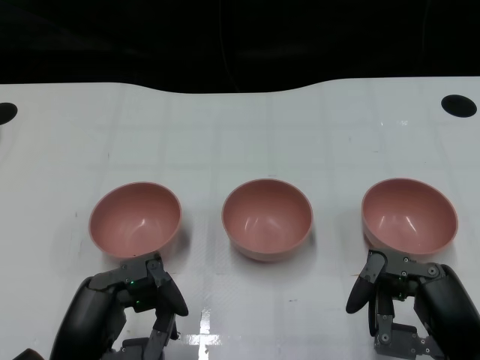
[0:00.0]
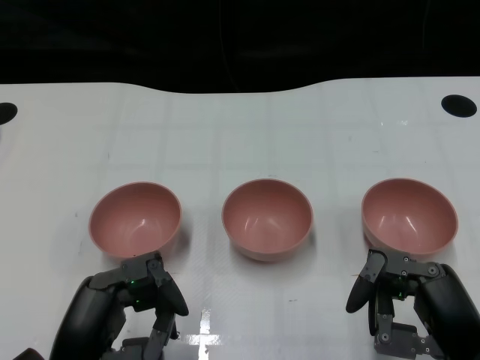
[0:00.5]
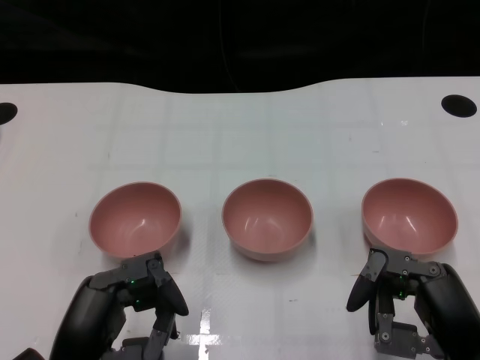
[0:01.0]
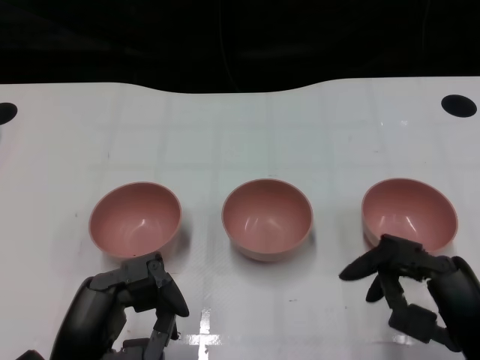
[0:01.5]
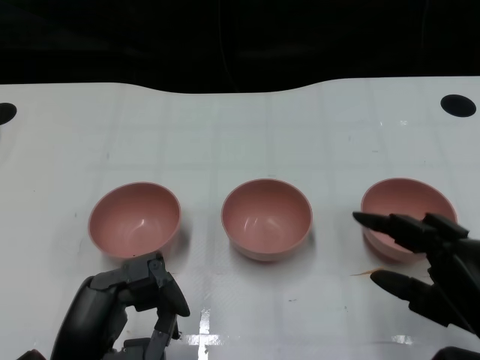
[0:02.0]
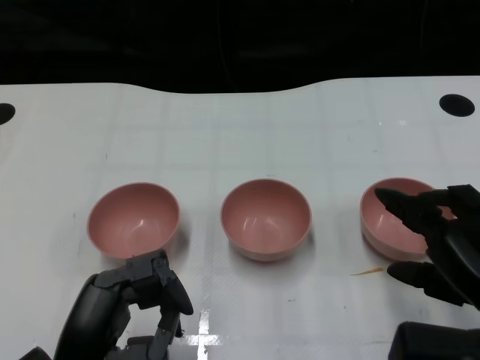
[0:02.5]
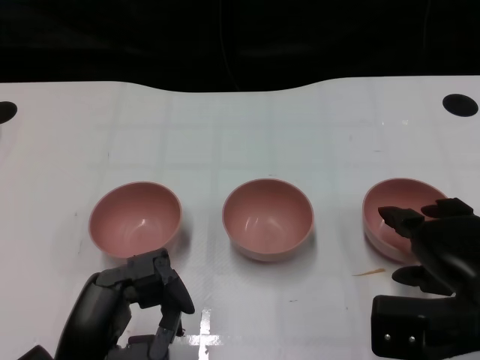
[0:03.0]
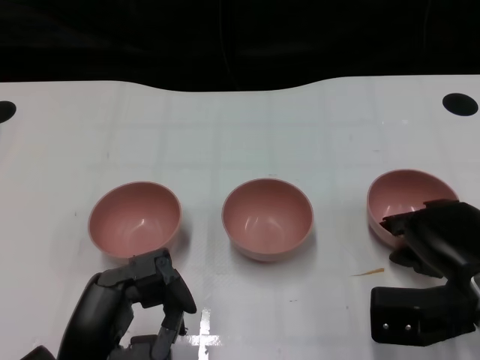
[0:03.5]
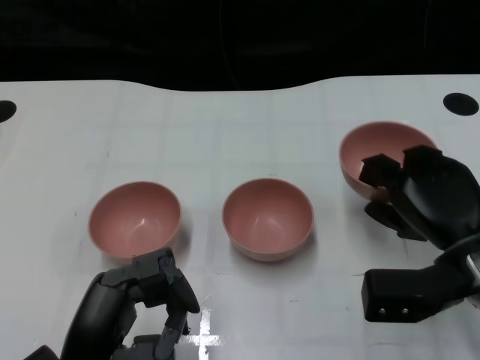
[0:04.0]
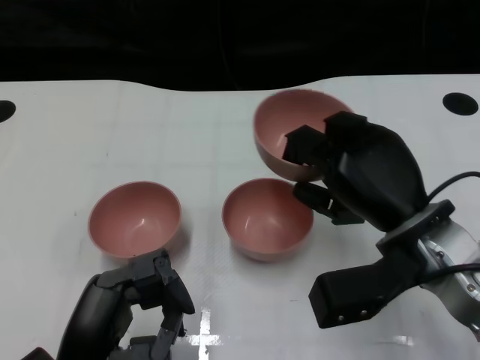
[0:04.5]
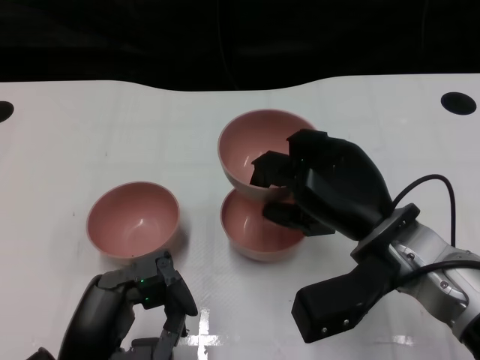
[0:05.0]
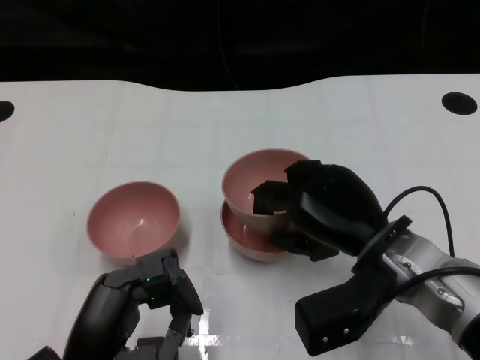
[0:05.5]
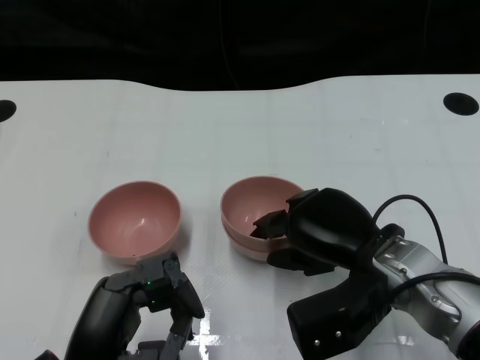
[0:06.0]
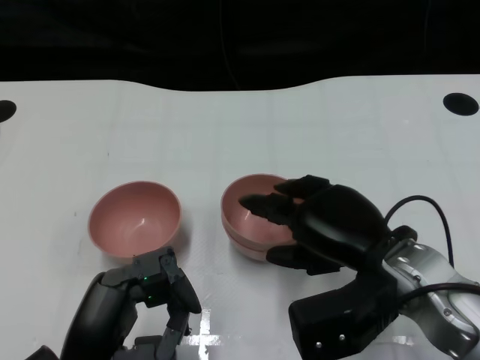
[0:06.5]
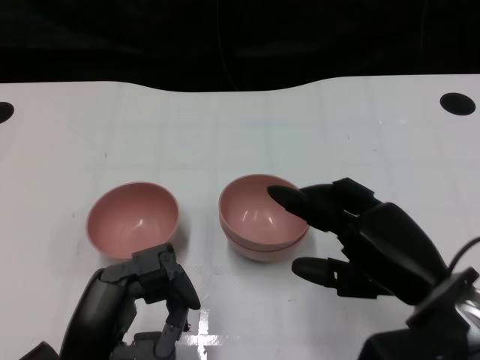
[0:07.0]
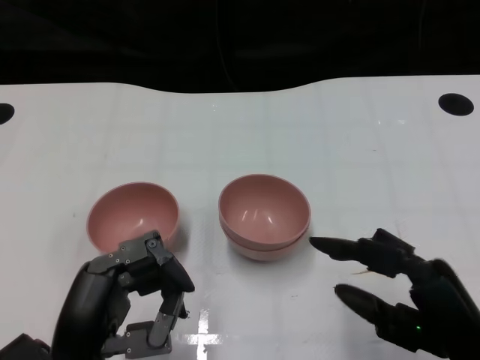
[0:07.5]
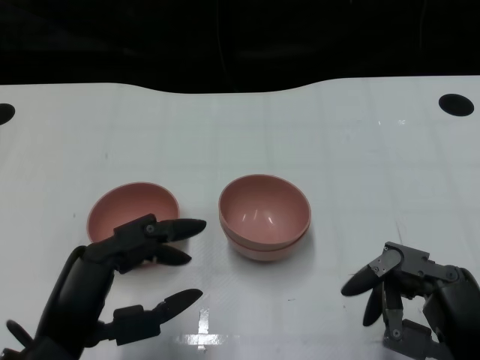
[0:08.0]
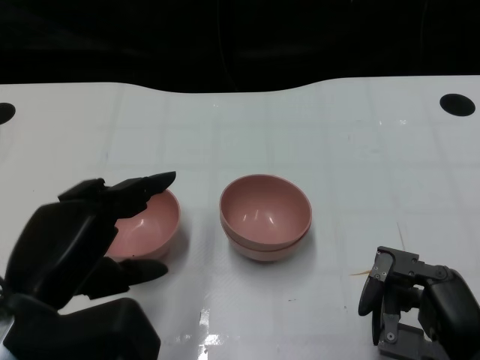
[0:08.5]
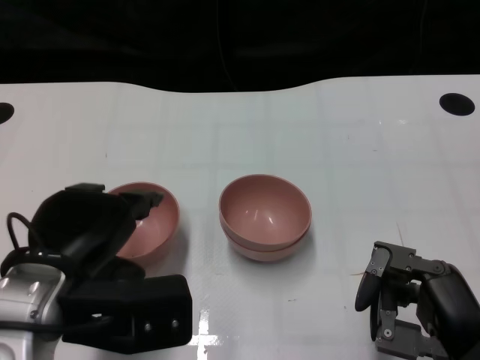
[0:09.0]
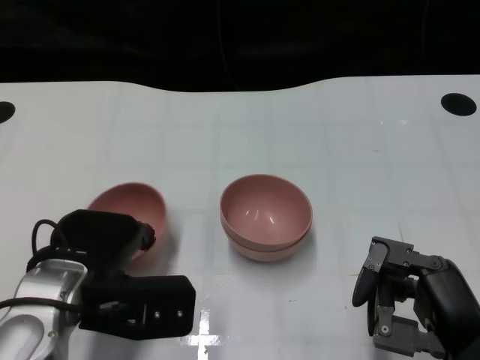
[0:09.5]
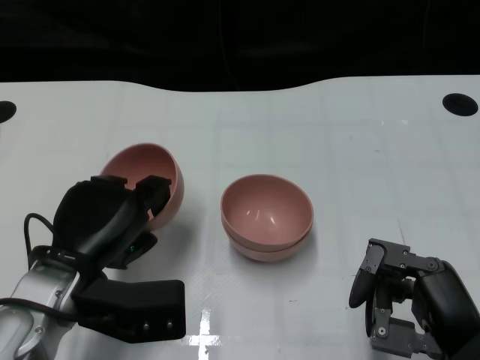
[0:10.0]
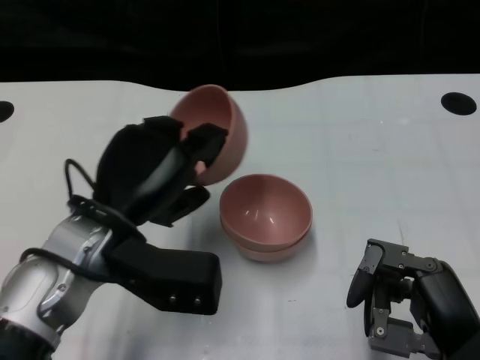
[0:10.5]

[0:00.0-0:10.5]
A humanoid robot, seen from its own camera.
Task of the whole recording: Pick up the bowl on one side of the table and place it on top of the middle bowl, then pick up the bowl on the other side of the table and place it on top of the middle bowls.
Step, 0:01.5 to 0:03.5: Grasp the bowl on the right with the right gripper.
Step, 0:04.0 to 0:06.5: Place the bowl on the right onto the bowl in the middle with right gripper.
Step, 0:07.5 to 0:09.5: Grasp the bowl on the left with the left gripper.
0:02.0 to 0:04.0: The right hand travels forward by roughly 10 cm.
0:04.0 to 0:06.5: The right hand heads to the left, covering approximately 10 cm.
0:06.5 to 0:08.5: The left hand moves upward, roughly 5 cm. The right hand goes approximately 15 cm backward and to the right.
0:08.5 to 0:10.5: The left hand shifts approximately 10 cm forward and to the right.

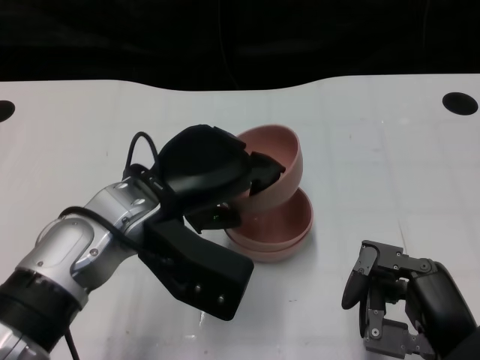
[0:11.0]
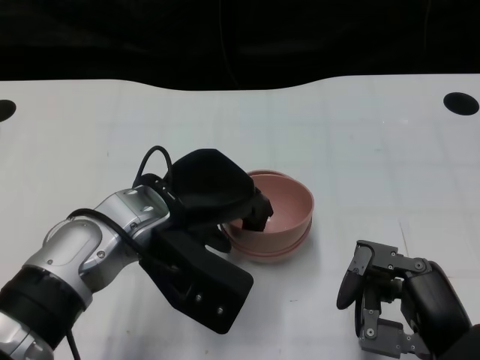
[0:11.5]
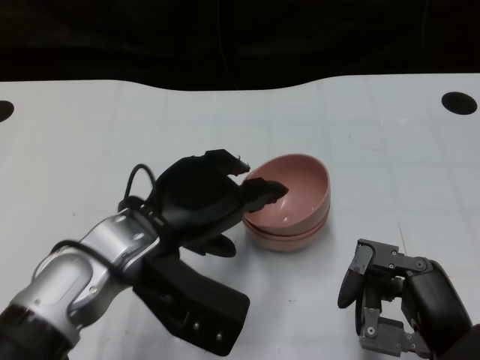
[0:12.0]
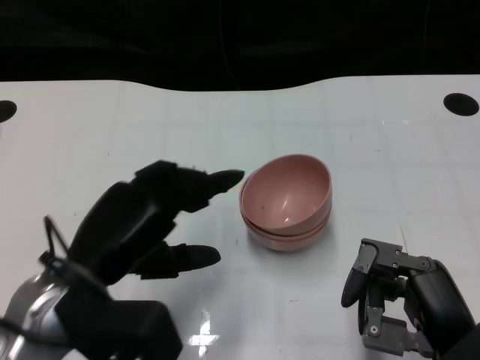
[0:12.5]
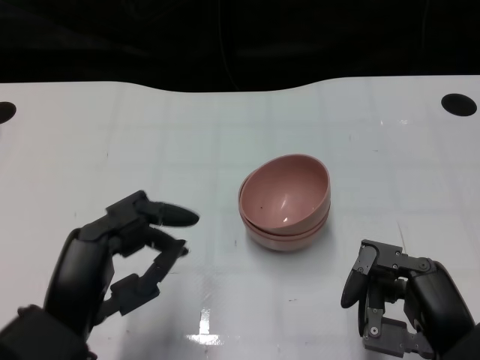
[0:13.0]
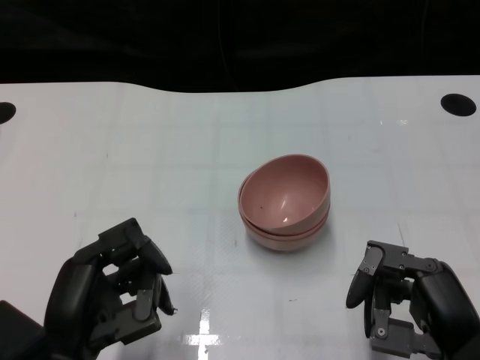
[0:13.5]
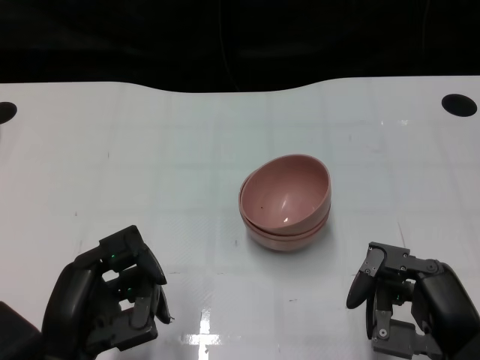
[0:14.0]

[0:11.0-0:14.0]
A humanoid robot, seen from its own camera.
Task of the whole recording: Pick up the bowl on one side of the table and place it on top of the middle bowl, then pick up the bowl on the other side of the table and place it on top of the middle bowls.
0:11.0 to 0:12.5: The left hand shifts about 10 cm to the left and backward.
0:12.5 to 0:14.0: The left hand travels backward and downward by about 10 cm.

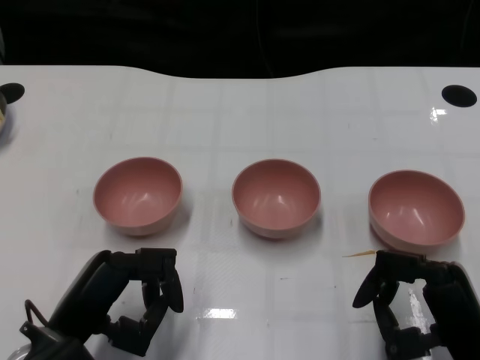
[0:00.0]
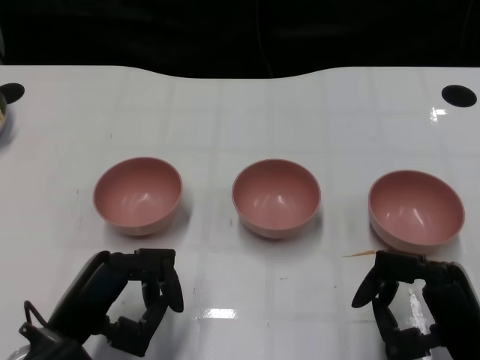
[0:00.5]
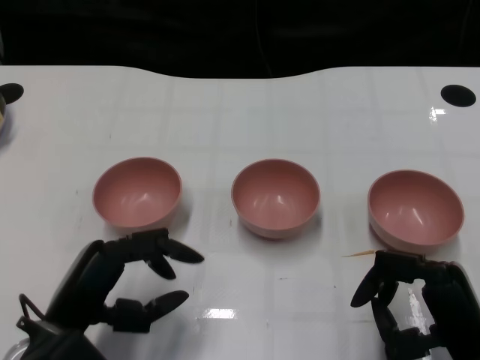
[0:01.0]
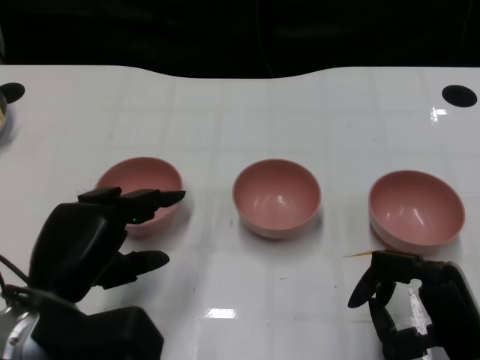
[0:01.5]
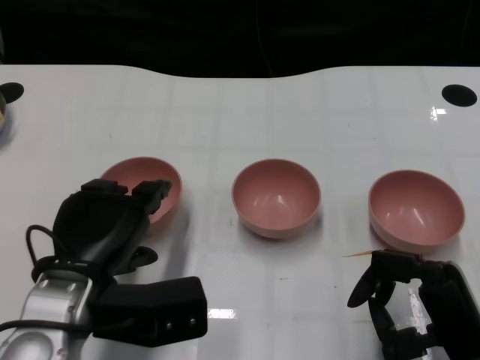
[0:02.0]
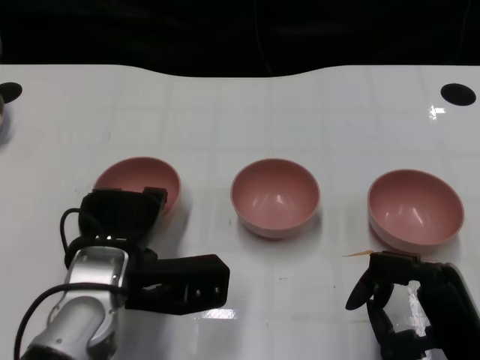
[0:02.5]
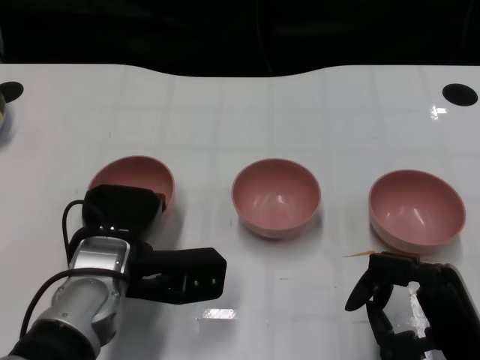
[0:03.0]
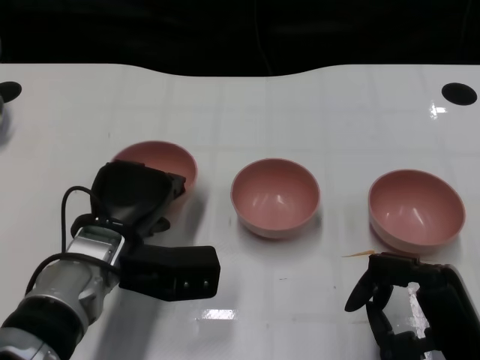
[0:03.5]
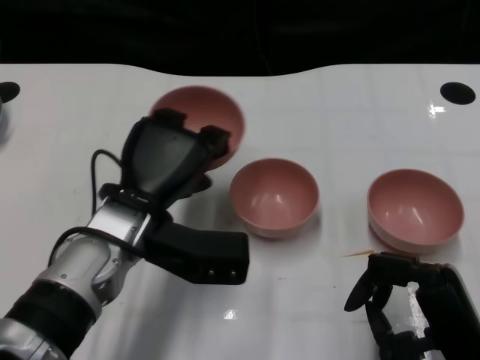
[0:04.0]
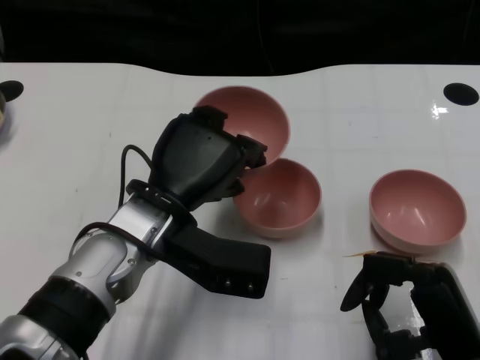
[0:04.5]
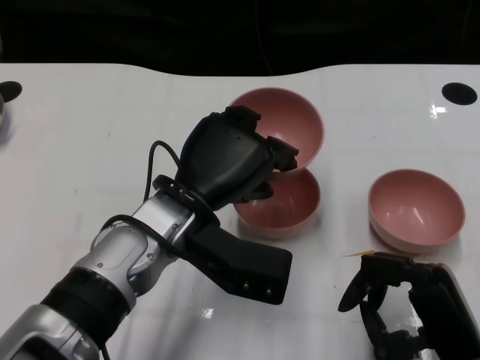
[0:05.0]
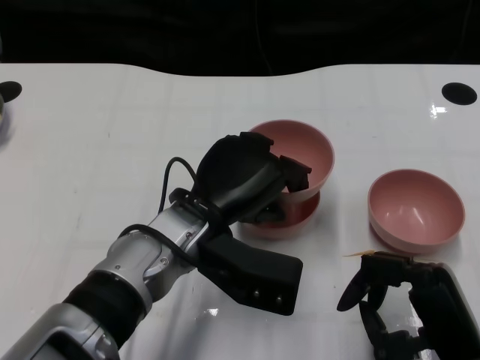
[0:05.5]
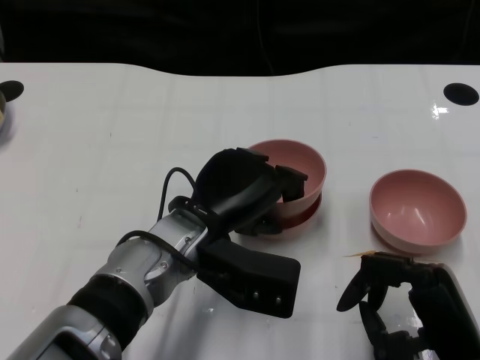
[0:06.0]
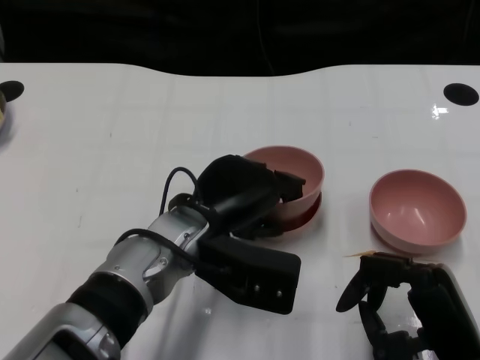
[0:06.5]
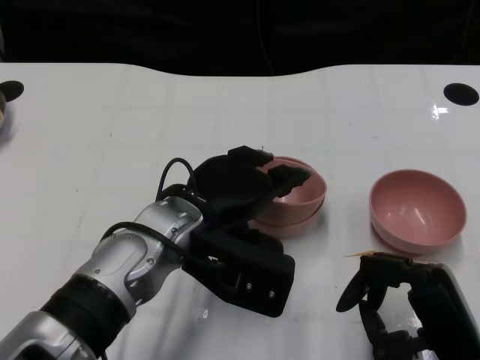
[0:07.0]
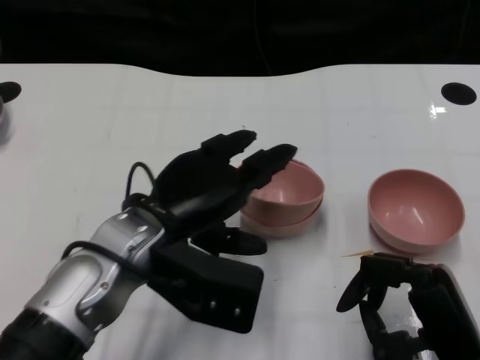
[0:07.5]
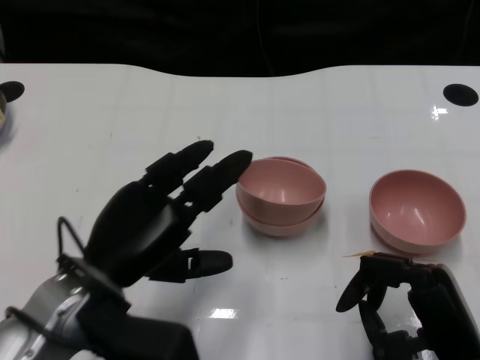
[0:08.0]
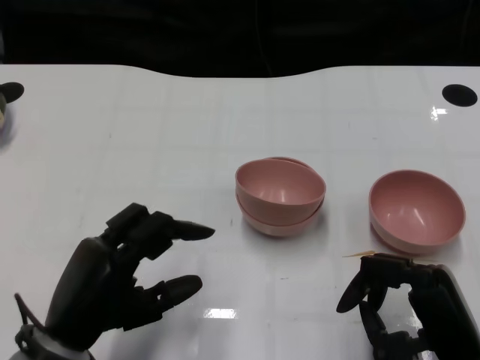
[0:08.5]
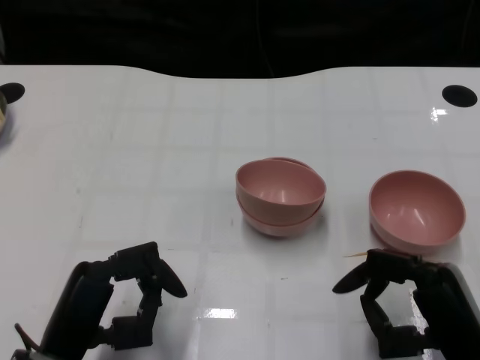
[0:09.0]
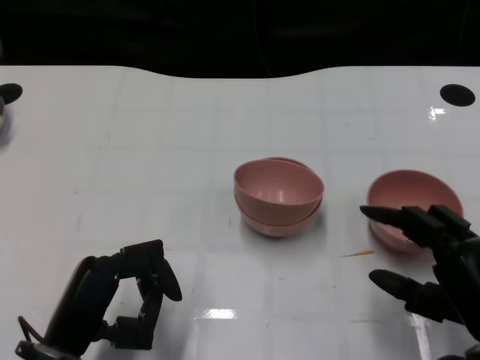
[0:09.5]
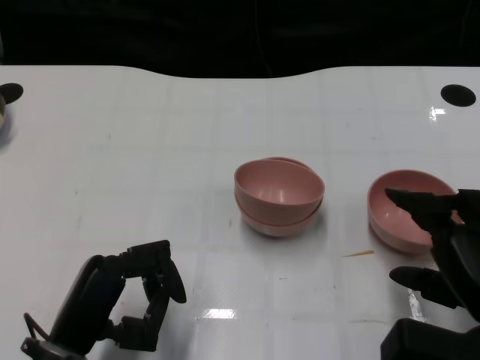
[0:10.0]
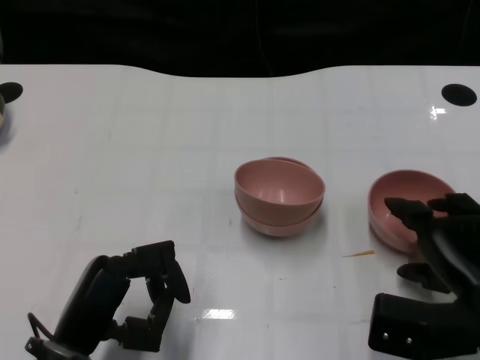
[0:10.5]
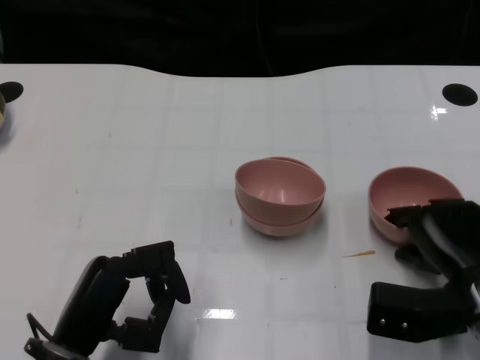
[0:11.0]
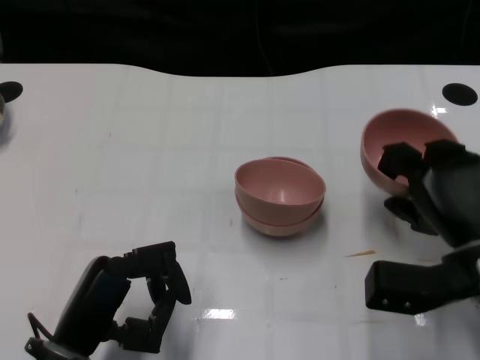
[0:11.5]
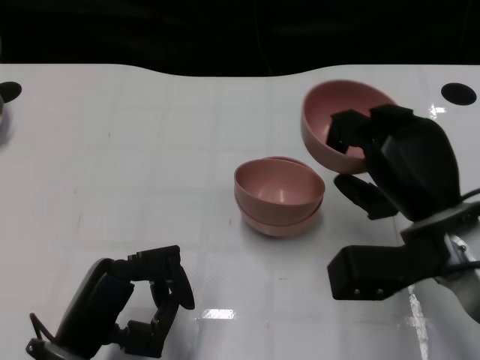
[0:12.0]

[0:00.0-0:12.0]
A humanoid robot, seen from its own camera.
Task of the whole recording: Pick up the bowl on one side of the table and place it on top of the middle bowl, then pick up the bowl on the other side of the table and place it on top of the middle bowls.
Step, 0:01.0 to 0:03.0: Grasp the bowl on the left with the left gripper.
Step, 0:03.5 to 0:07.5: Place the bowl on the left onto the bowl in the middle with left gripper.
Step, 0:08.0 to 0:11.0: Grasp the bowl on the right with the right gripper.
0:02.0 to 0:04.0: The left hand moves forward and to the right, about 10 cm.
0:04.0 to 0:06.0: The left hand shifts approximately 5 cm to the right.
0:06.0 to 0:08.0: The left hand heads to the left and backward, covering some 10 cm.
0:08.0 to 0:10.0: The left hand shifts roughly 5 cm downward. Meanwhile the right hand ends up about 5 cm from where it was.
0:10.0 to 0:12.0: The right hand travels forward and to the left by approximately 10 cm.
